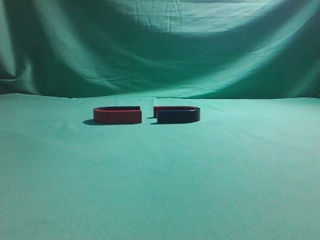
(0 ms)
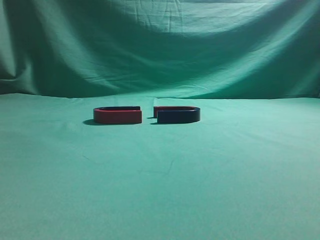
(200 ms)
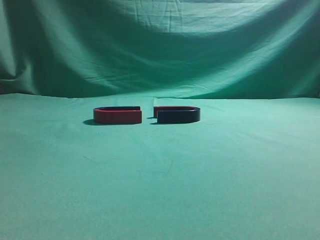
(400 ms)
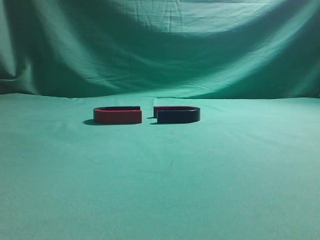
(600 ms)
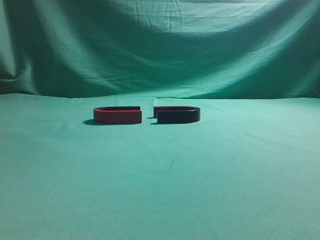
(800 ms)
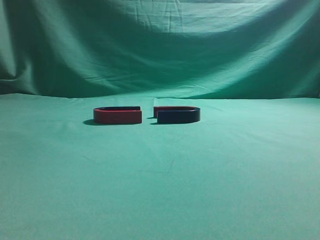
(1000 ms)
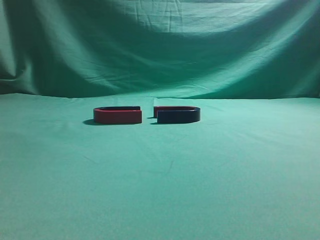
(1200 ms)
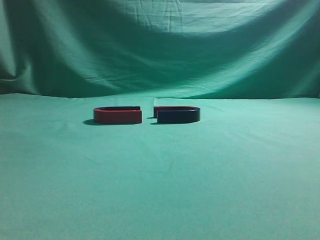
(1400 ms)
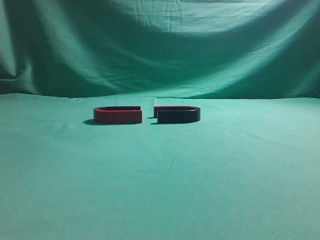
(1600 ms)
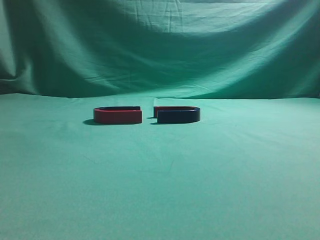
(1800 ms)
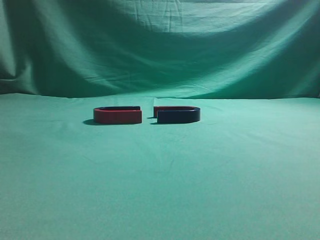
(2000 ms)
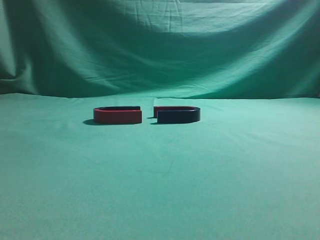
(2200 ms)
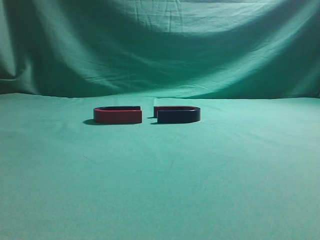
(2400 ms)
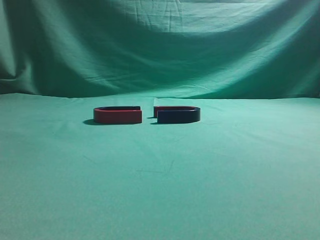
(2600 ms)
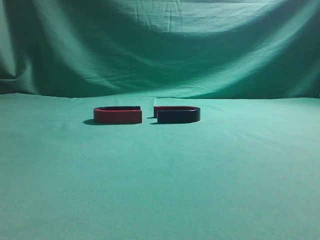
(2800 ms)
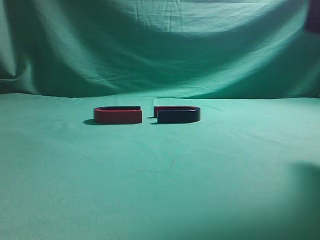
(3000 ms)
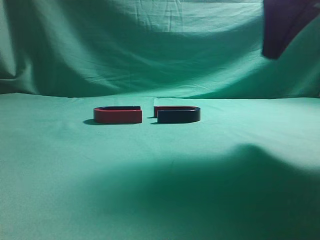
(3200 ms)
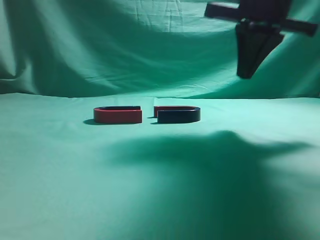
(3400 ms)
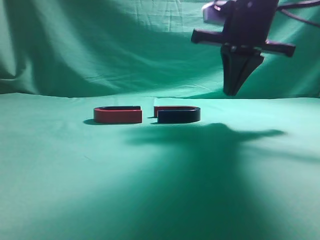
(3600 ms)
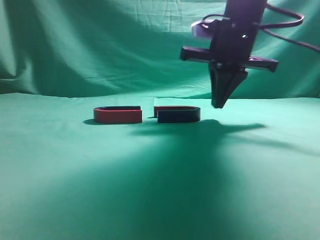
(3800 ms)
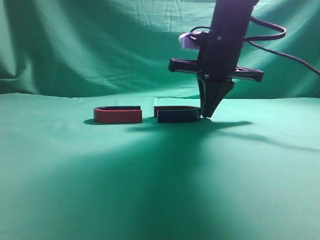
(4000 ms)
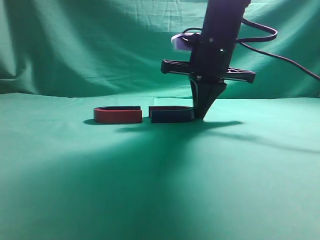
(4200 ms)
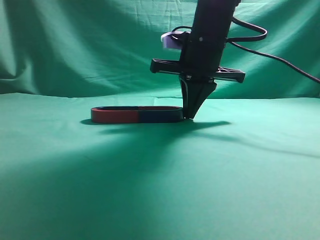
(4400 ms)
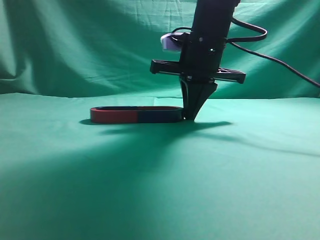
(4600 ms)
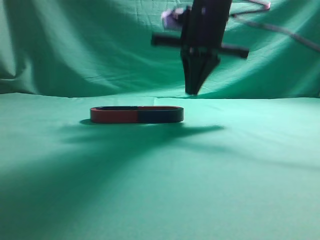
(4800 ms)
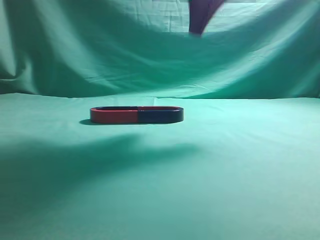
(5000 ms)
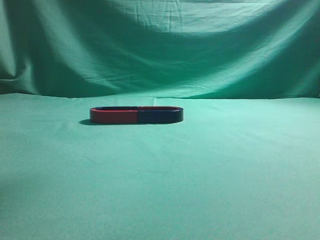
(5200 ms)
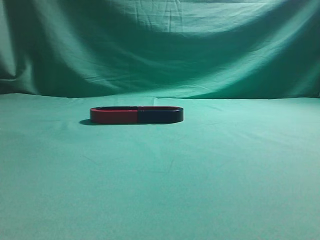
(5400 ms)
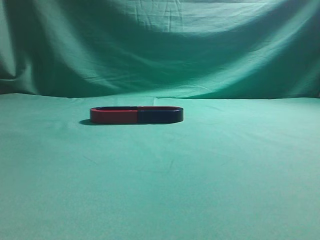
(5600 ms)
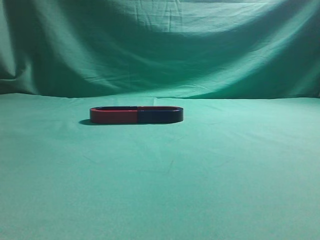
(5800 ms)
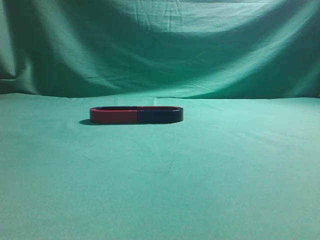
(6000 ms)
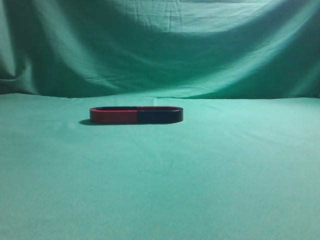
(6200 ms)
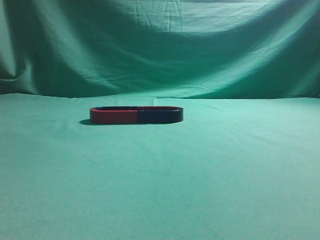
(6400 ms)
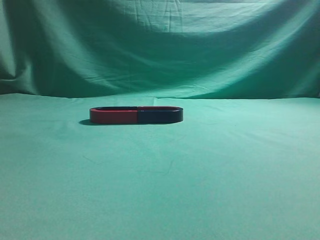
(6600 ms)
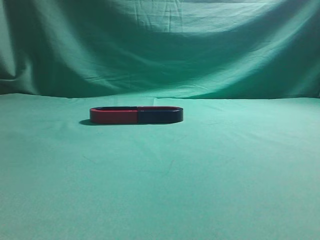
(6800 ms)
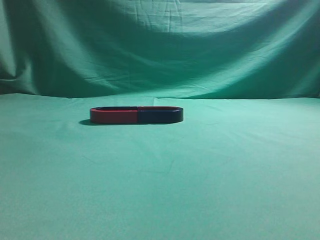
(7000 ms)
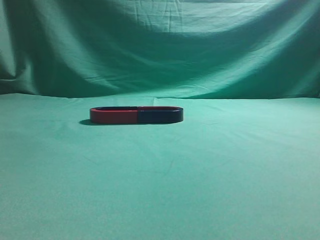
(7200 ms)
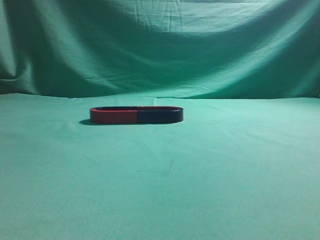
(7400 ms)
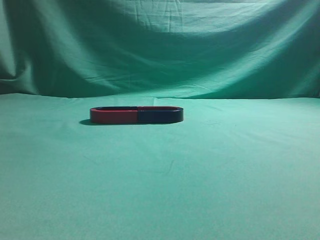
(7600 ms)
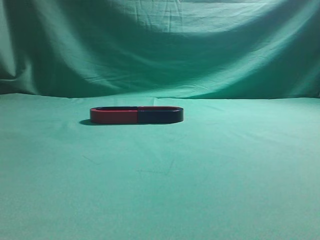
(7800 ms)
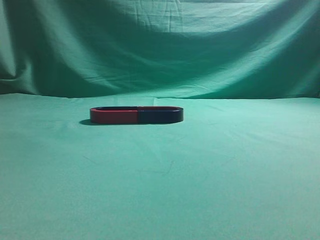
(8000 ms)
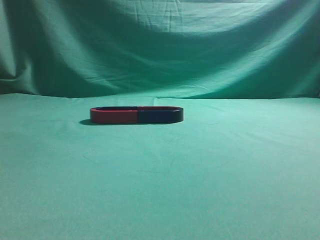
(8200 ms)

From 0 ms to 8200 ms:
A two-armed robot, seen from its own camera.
Task of the whole recording: push the magnet on the table from its original position to another position.
Step, from 0 ms to 4600 ms: Push the magnet on the right to connect the magnet on the left.
From 1600 ms to 3200 ms: The right gripper heads forward and to the left, covering roughly 25 cm.
From 3200 ms to 5000 ms: The right gripper moves to the left and forward, about 10 cm, and travels downward and back again, approximately 10 cm each way.
From 5000 ms to 6600 ms: The right gripper heads backward and to the right, covering roughly 35 cm.
